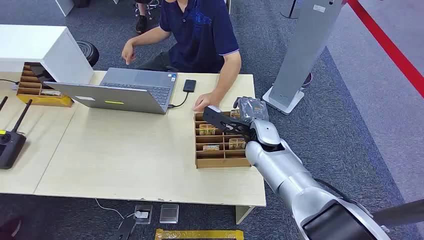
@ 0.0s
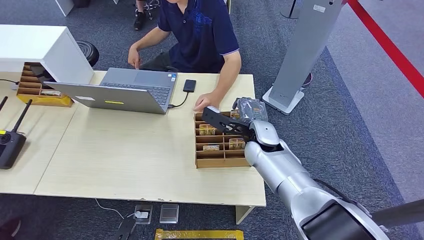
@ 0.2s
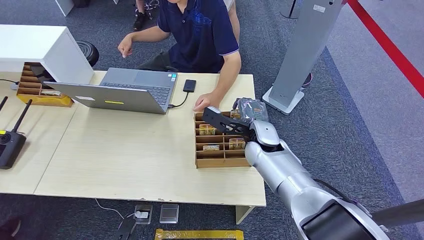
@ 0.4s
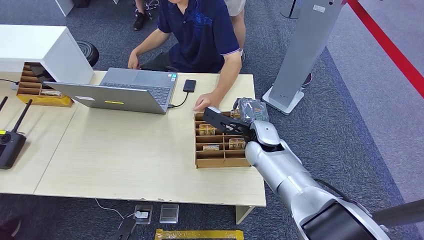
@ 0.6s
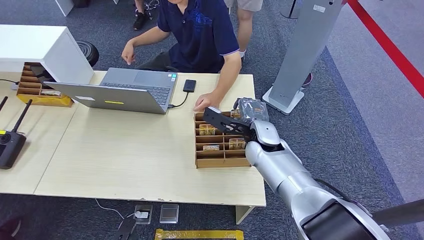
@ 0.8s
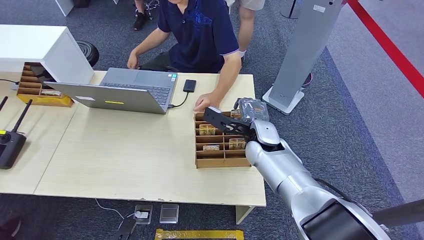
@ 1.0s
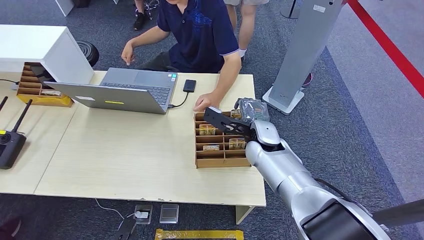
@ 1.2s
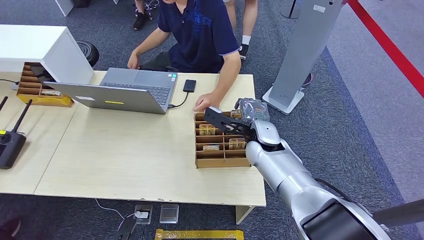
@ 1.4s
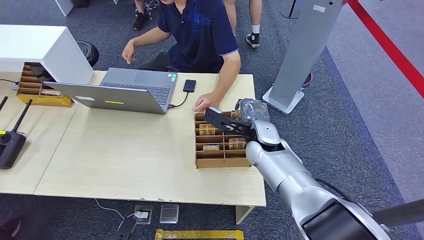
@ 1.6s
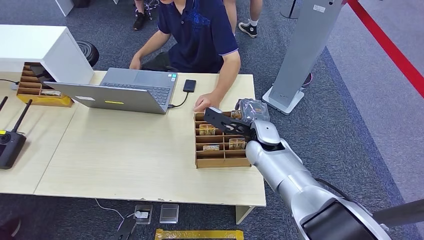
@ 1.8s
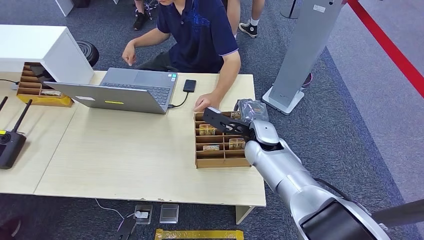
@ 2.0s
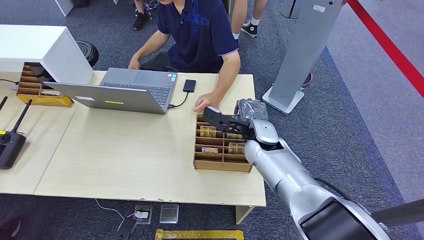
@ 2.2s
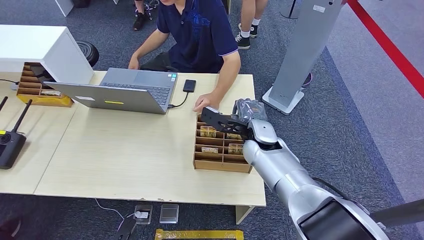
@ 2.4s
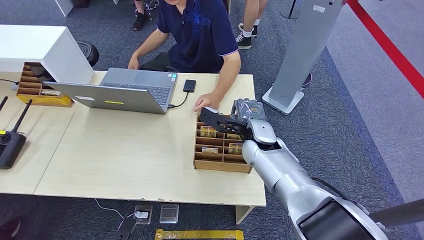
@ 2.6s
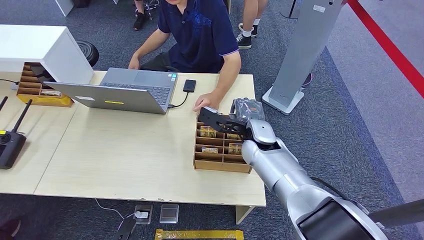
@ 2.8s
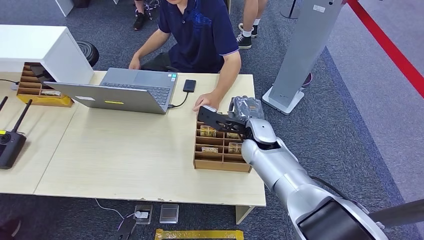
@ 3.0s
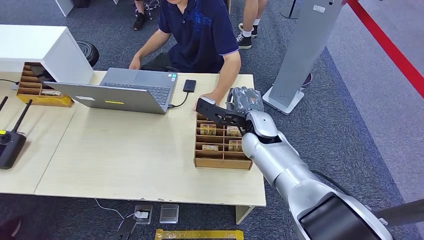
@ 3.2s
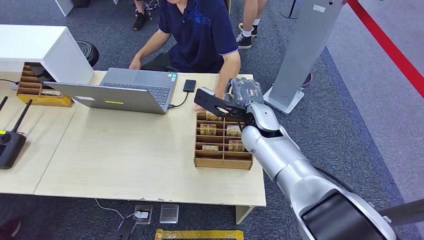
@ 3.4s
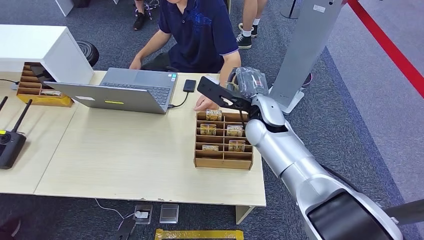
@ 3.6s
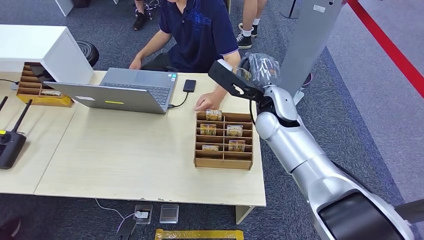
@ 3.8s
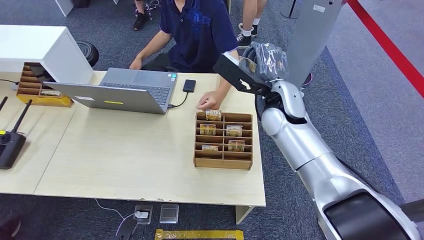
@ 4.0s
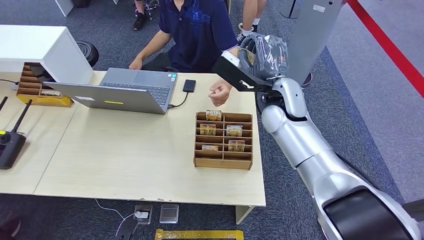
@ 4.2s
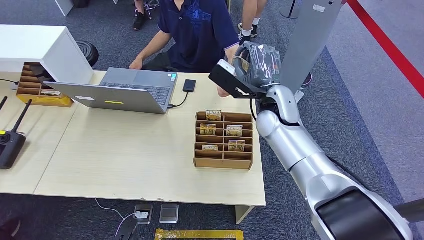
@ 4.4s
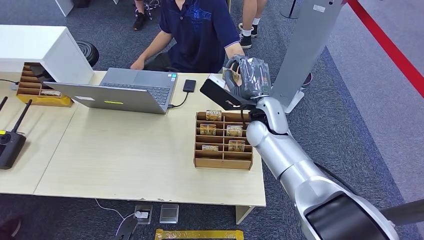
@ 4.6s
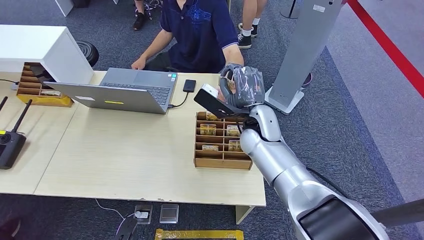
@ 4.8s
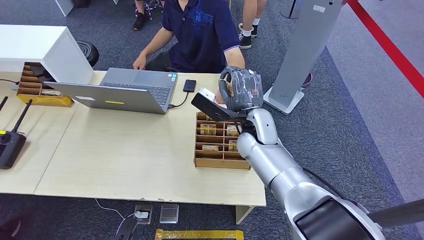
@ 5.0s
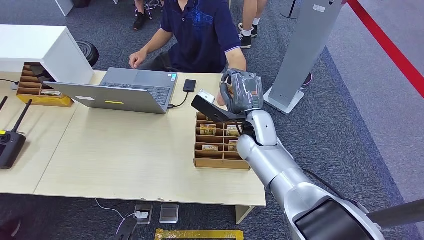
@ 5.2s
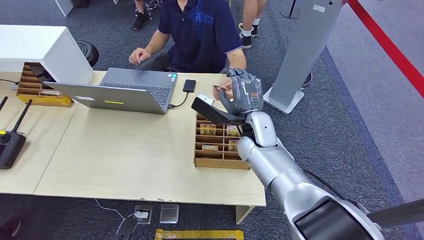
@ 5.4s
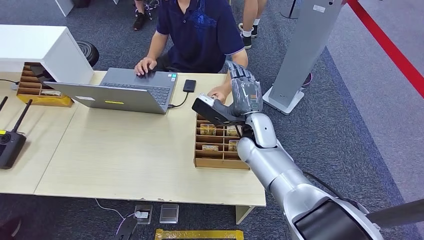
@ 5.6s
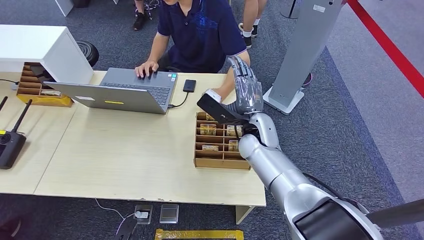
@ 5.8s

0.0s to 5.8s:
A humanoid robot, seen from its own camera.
Step, 0.0s to 3.4s: Pick up the room card from the card holder.
Step, 4.6s to 5.8s: Hand the room card to the target.
1.4s to 2.8s: Neither hand changes place.
2.8s to 4.4s: The right hand is displaced upward by roughly 10 cm.
4.4s to 5.8s: The right hand travels downward by about 5 cm.
